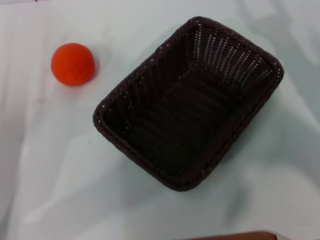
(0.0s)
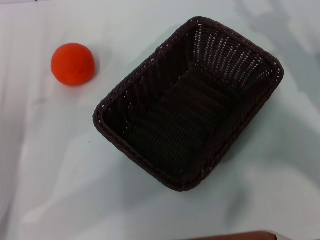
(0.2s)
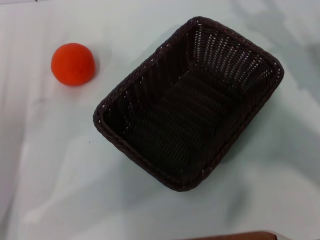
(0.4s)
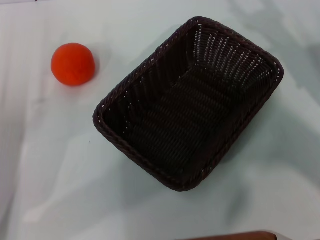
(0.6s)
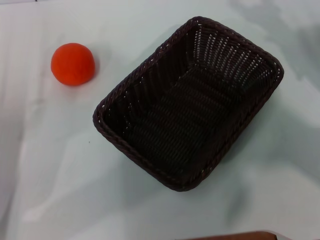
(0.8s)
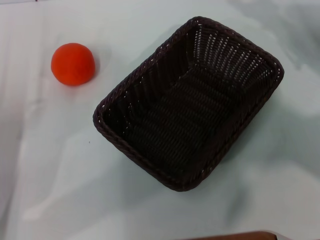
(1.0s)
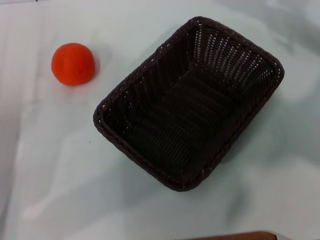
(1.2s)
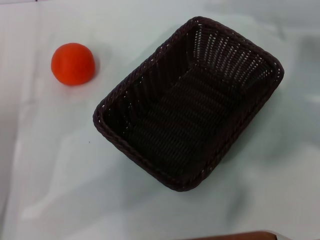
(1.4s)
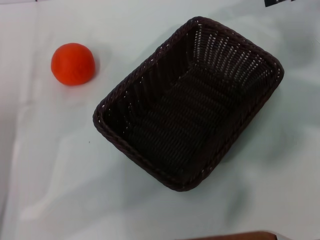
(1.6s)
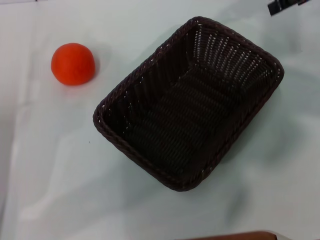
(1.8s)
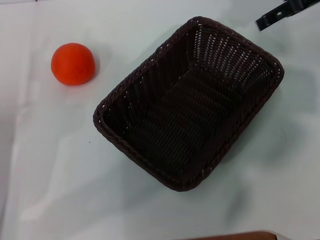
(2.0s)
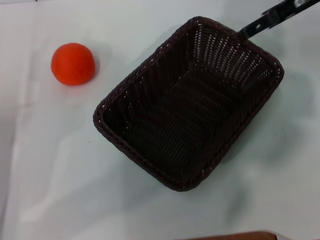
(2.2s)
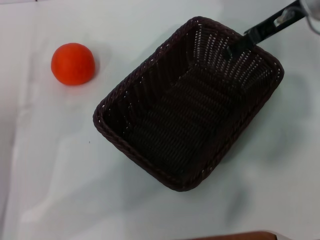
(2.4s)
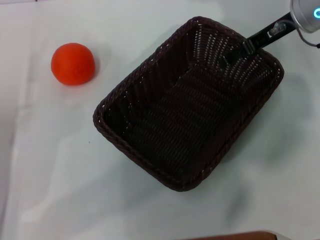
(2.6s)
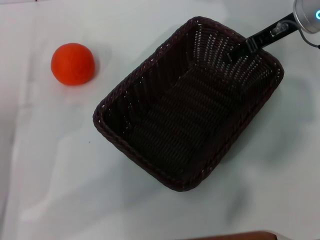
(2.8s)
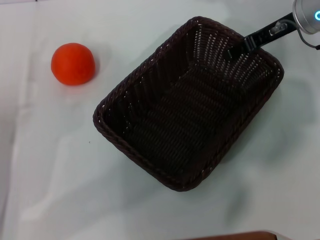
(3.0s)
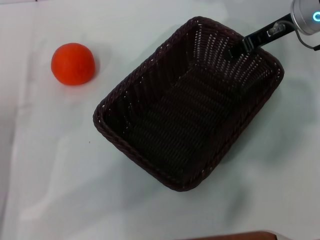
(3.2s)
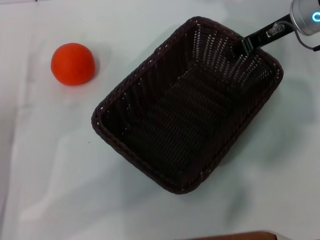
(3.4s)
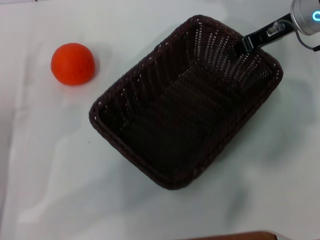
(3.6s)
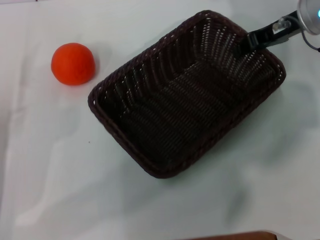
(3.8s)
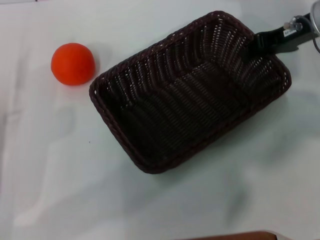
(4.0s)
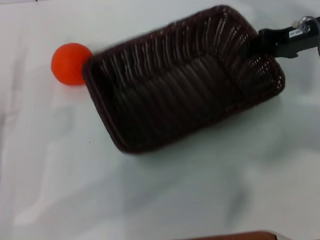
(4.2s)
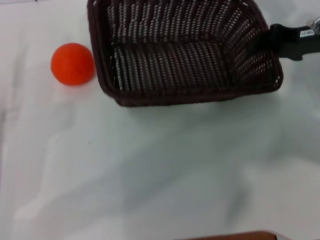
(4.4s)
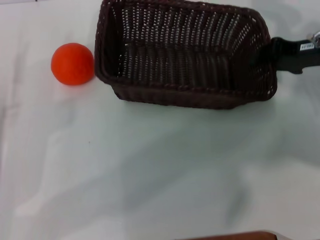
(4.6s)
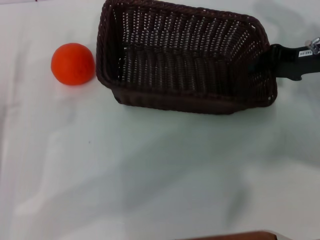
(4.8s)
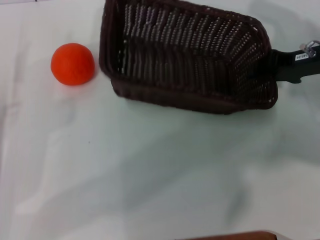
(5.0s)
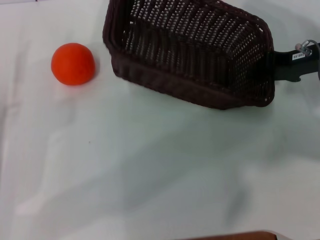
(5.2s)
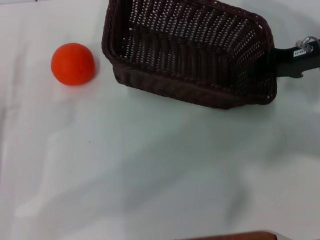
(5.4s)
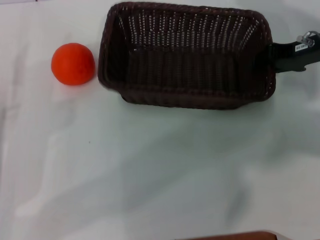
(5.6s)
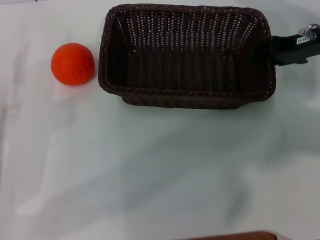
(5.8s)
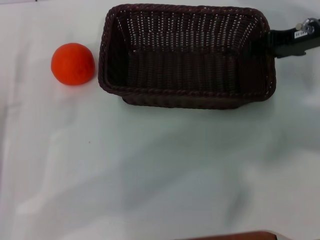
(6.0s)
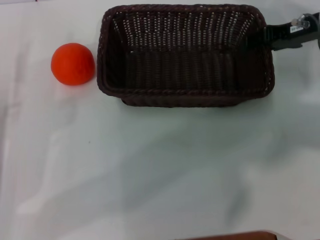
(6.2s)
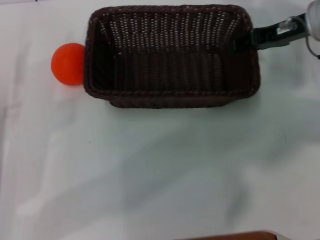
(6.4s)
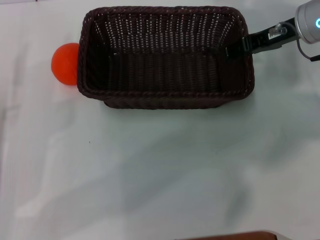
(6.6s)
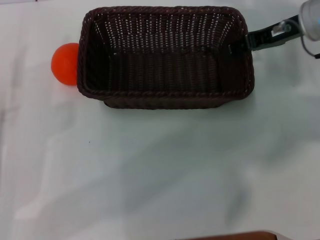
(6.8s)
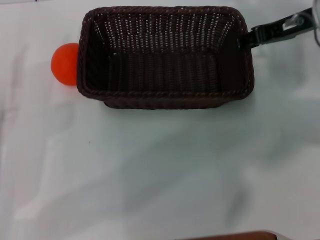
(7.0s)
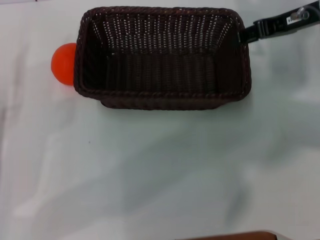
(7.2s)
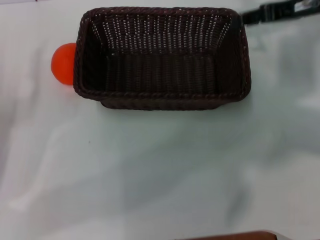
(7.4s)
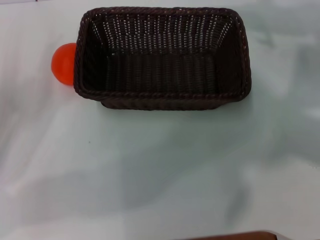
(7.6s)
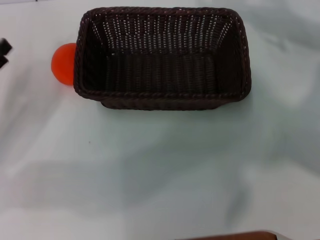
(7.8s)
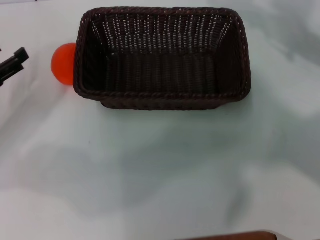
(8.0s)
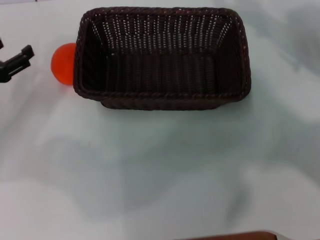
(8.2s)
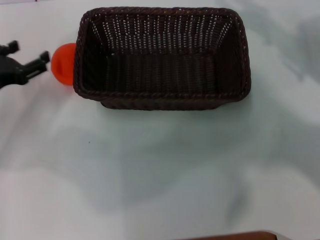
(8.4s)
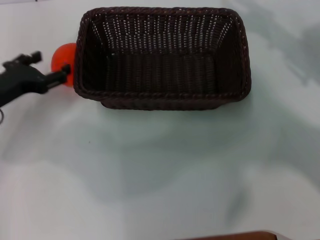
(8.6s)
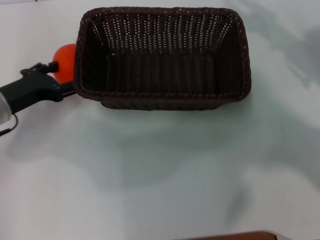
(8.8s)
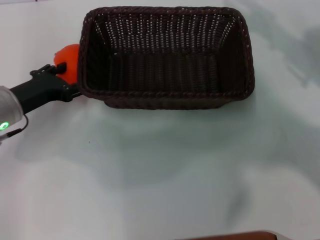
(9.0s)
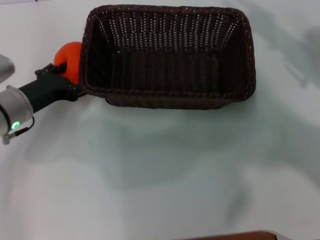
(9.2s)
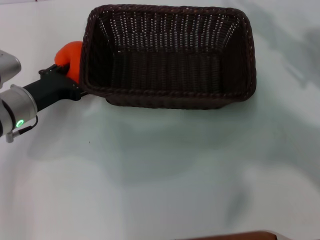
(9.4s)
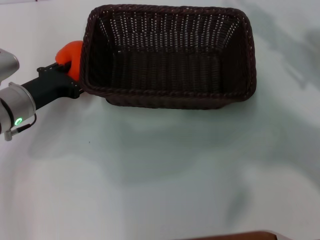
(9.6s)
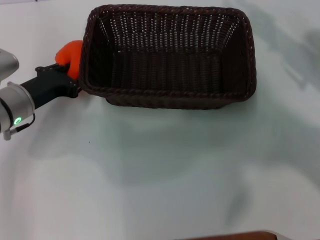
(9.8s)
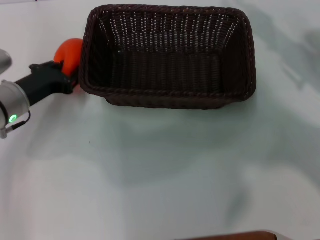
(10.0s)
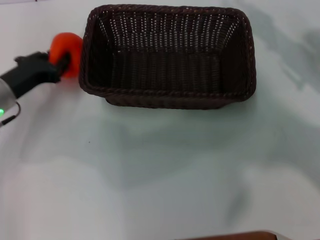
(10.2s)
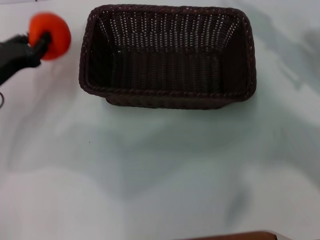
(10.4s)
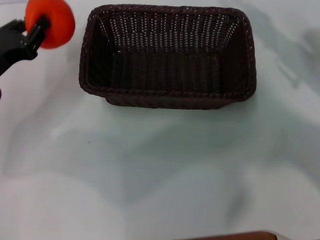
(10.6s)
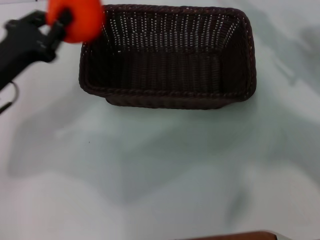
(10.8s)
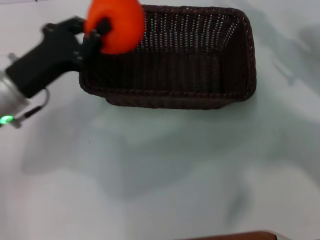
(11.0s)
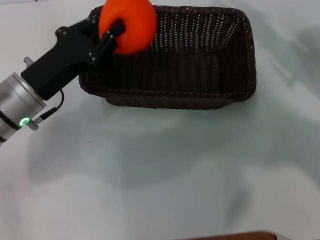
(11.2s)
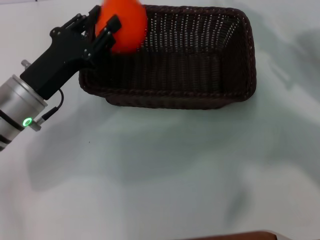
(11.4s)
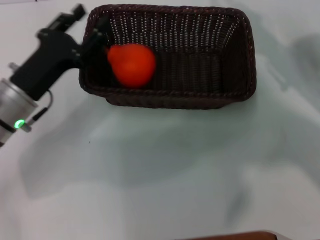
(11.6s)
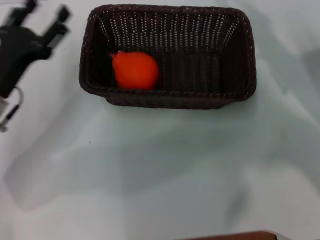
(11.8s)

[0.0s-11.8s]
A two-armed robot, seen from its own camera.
Task of the whole recording: the right gripper pick up the black basket and place it horizontally in the middle of the table, the left gripper pick up the orange and place it into the black basket.
Step, 0.0s to 4.0s: Pick up the dark basket with the right gripper.
Step, 4.2s to 7.2s: Place the dark basket in the center of view with the right gripper.
Step, 7.4s to 10.2s: Pick up the orange with the left gripper.
Step, 10.4s to 11.6s: Place the orange into the dark basket with the left gripper.
0.0s to 1.4s: The right gripper is displaced upward and forward by about 15 cm.
1.4s to 3.0s: The right gripper goes roughly 10 cm to the left and downward.
3.0s to 4.4s: The right gripper goes roughly 5 cm to the right, and closes.
4.4s to 6.0s: The right gripper opens its fingers.
7.4s to 8.8s: The left gripper is displaced forward by about 10 cm. Meanwhile the right gripper goes some 15 cm backward, to the right and downward.
8.8s to 10.4s: The left gripper closes its fingers.
10.4s to 11.8s: The left gripper opens its fingers.

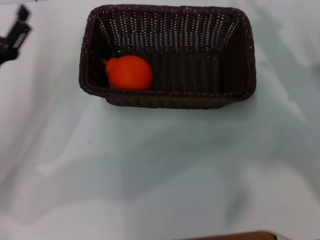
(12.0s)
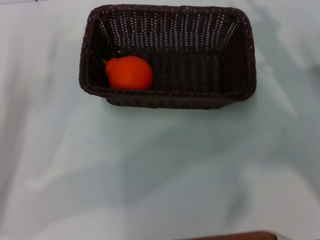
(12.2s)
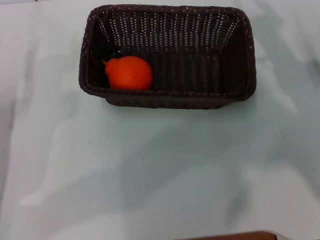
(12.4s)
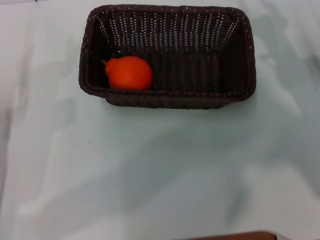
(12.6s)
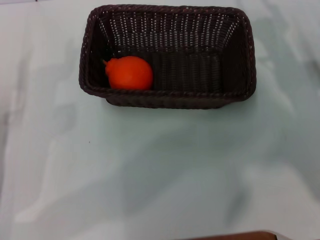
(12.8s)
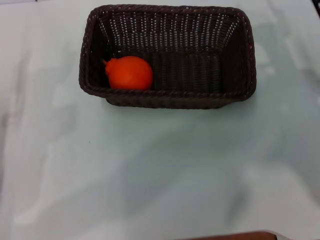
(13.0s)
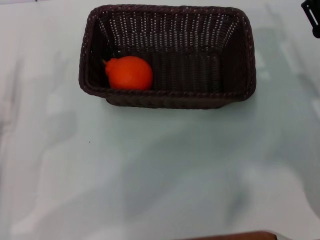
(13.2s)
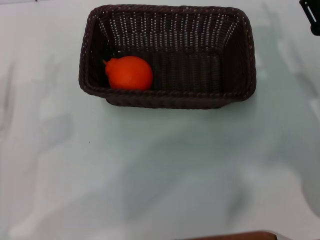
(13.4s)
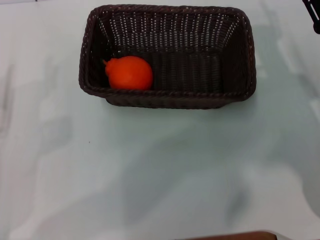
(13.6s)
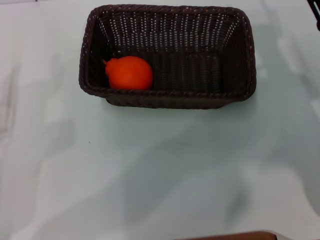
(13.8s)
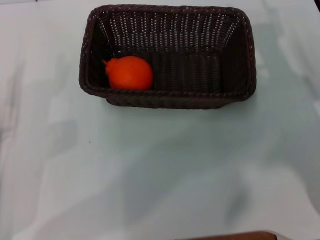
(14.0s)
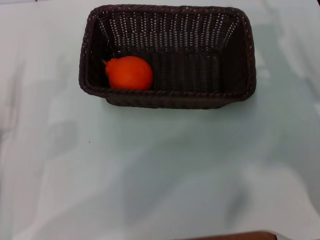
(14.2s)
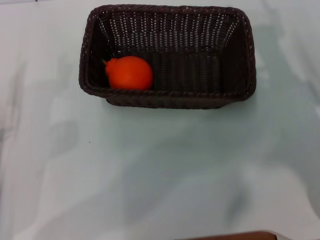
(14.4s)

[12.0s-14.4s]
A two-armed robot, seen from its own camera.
Task of the whole recording: the right gripper pick up the black basket and place it horizontally in the middle of the table, the left gripper pick up the orange and place it into the black basket.
12.0s to 13.2s: The right gripper opens. The left gripper heads backward, covering about 5 cm.

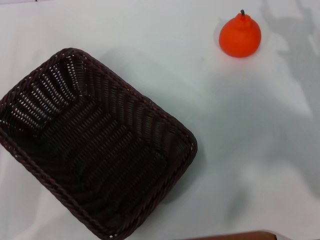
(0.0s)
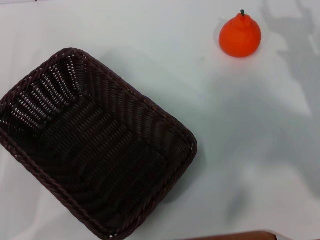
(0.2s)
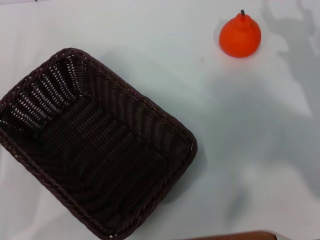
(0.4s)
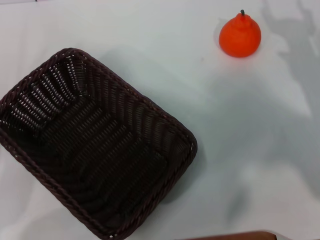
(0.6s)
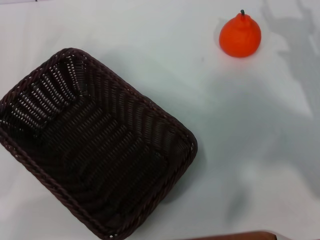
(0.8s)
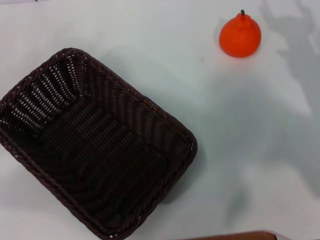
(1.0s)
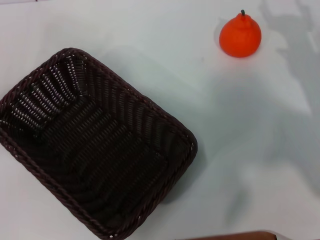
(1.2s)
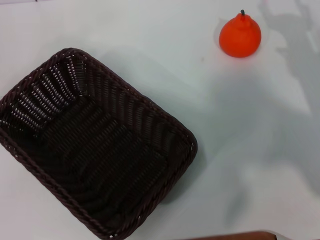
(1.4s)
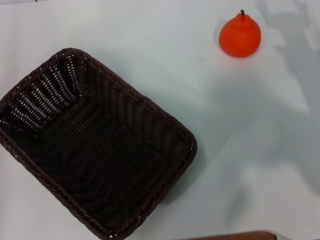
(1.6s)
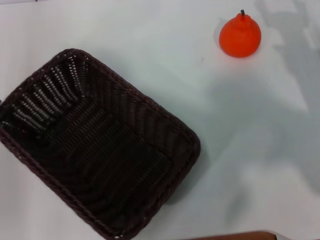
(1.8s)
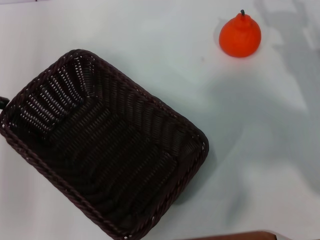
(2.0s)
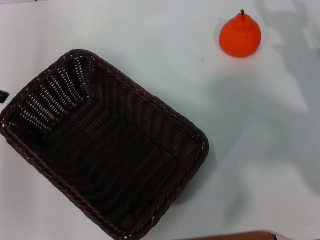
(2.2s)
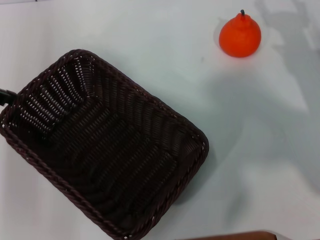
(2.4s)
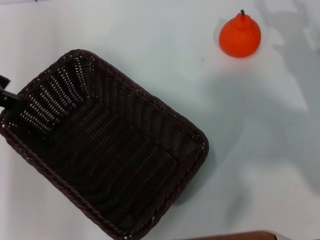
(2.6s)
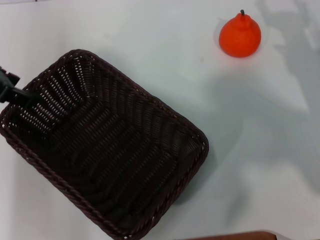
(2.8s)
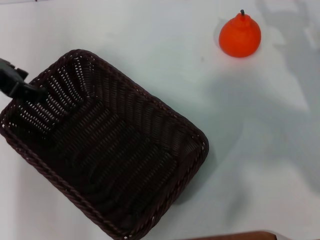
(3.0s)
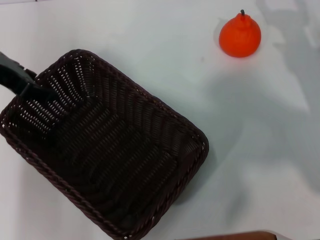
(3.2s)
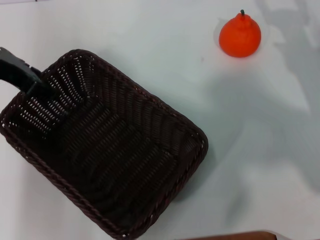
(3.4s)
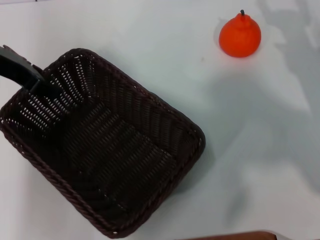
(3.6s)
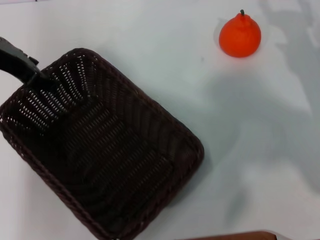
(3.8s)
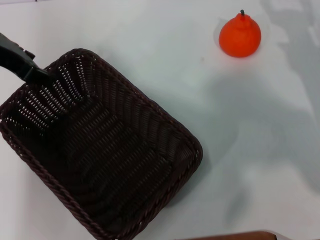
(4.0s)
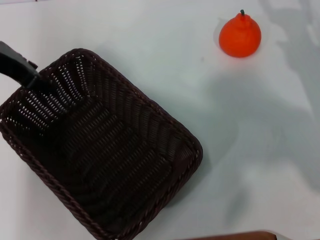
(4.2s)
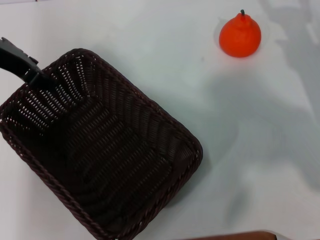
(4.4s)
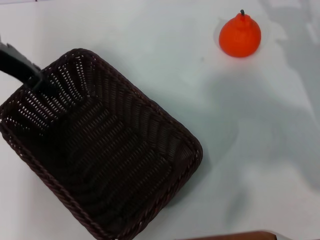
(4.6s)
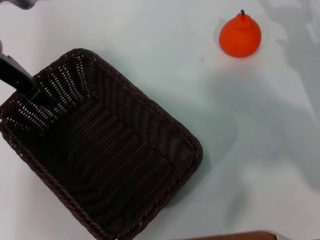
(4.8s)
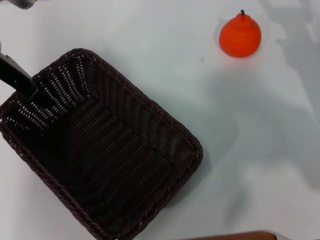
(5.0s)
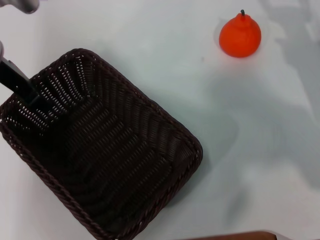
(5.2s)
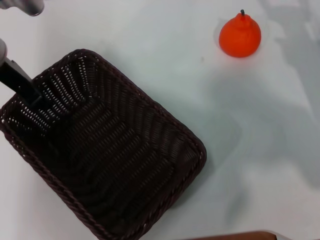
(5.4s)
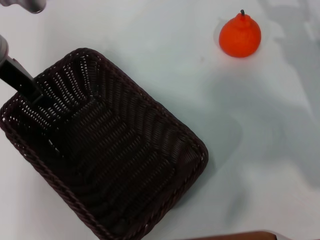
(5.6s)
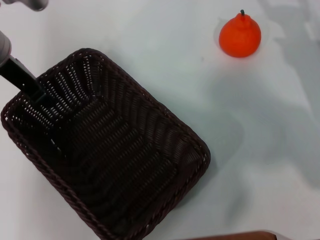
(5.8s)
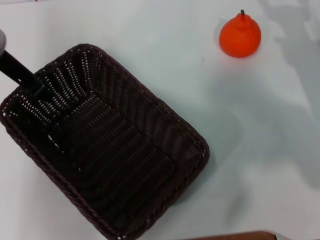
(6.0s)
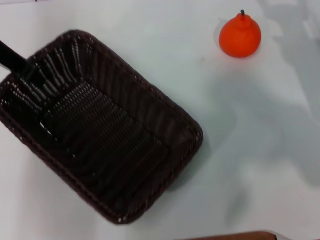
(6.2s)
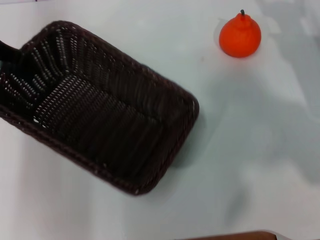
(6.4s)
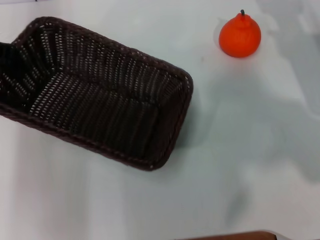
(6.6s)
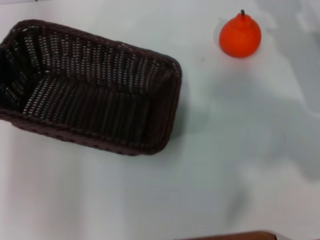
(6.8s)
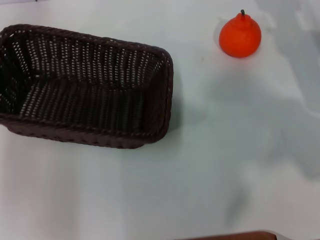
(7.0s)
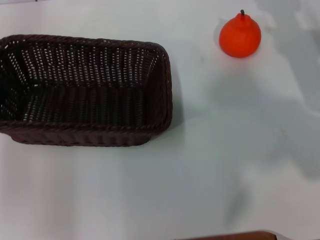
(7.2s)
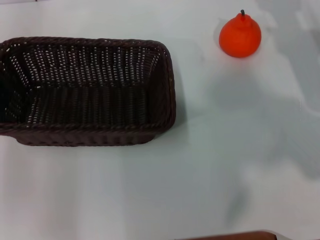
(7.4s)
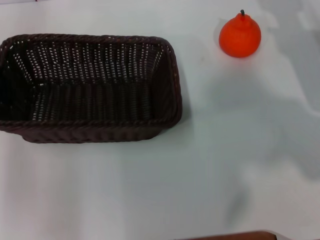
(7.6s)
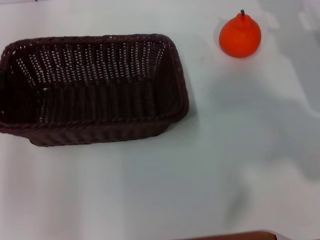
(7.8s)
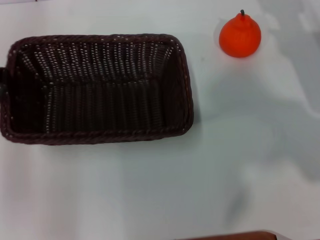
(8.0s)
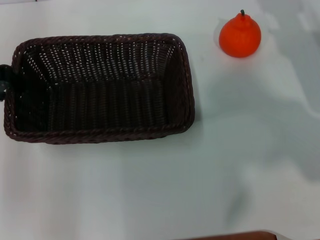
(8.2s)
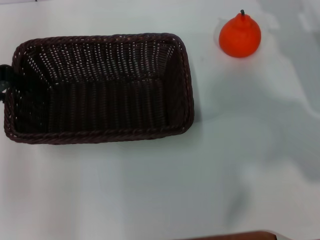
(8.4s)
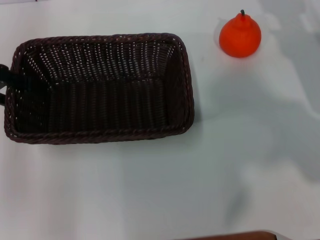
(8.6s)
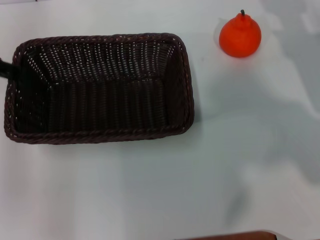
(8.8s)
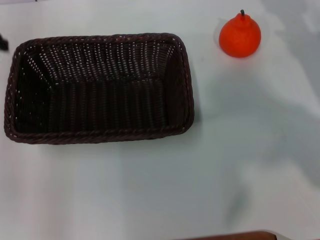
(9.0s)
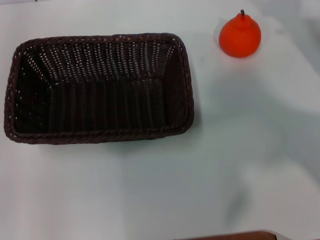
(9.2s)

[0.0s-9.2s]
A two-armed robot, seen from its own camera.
Task of the whole recording: the left gripper pick up the black basket and place it horizontally in the middle of the table, the right gripper pick up the orange and place it into the black basket.
Step, 0.0s to 6.0s: Pick up the dark basket with the left gripper.
Step, 6.4s to 8.8s: Place the dark basket in the center of view with the left gripper.
0.0s to 1.6s: The left gripper travels upward and forward by approximately 20 cm.
1.6s to 3.0s: The left gripper shifts roughly 10 cm to the right.
3.0s to 4.6s: The left gripper shifts by about 5 cm.
4.6s to 6.2s: The left gripper closes.
6.2s to 7.6s: The left gripper is displaced to the left by some 5 cm.
7.6s to 9.2s: The left gripper heads upward, covering roughly 5 cm, and opens its fingers.
